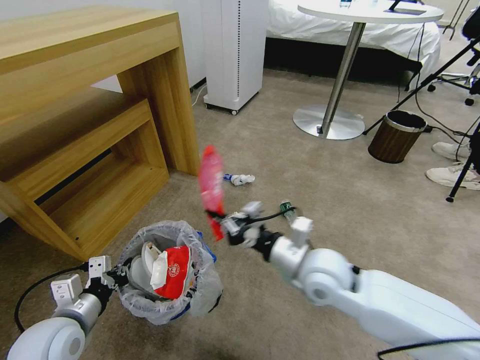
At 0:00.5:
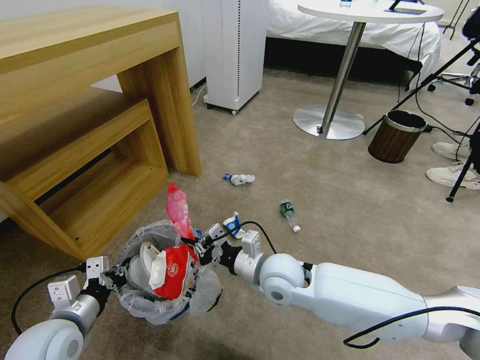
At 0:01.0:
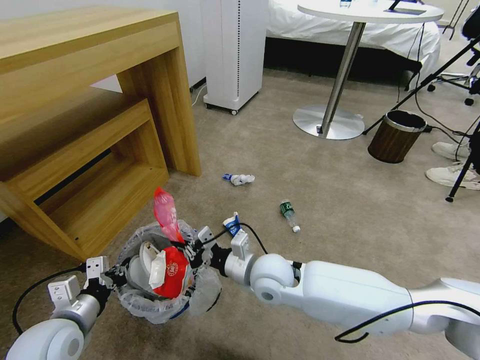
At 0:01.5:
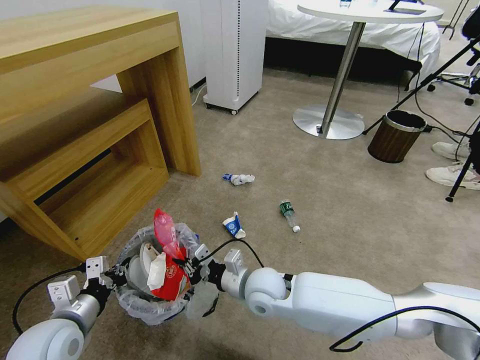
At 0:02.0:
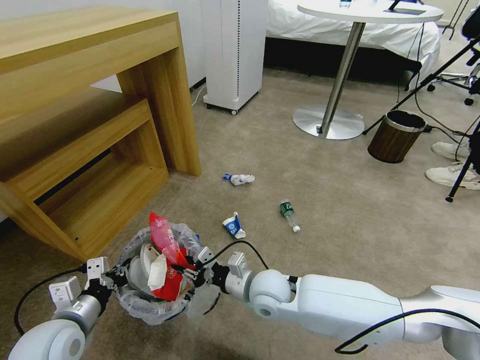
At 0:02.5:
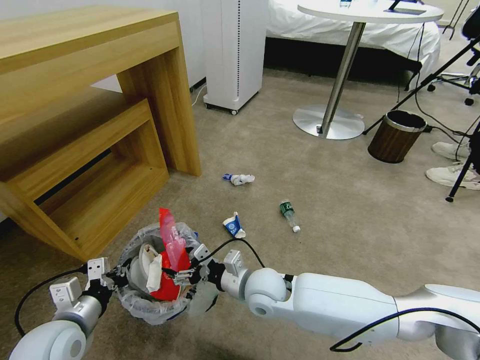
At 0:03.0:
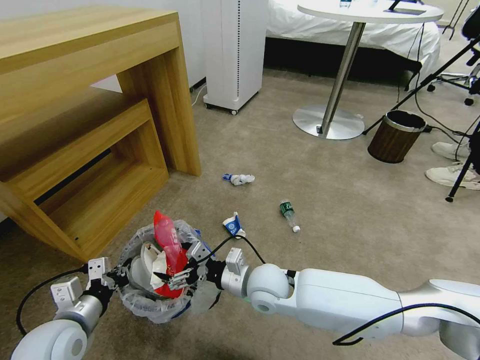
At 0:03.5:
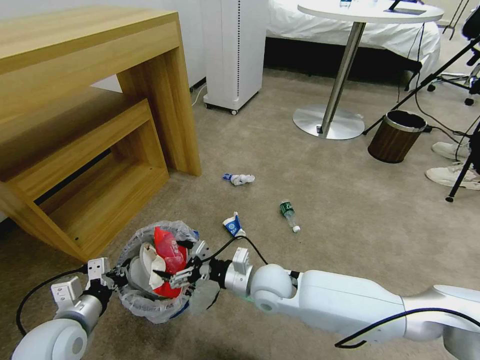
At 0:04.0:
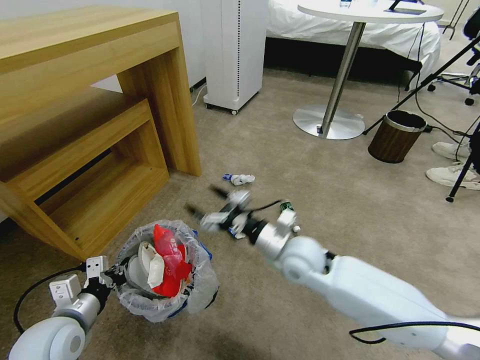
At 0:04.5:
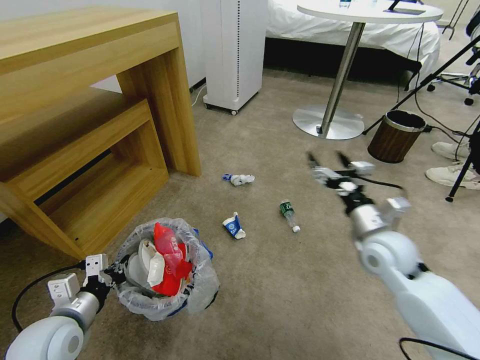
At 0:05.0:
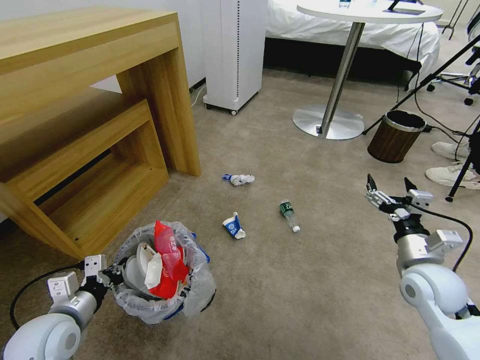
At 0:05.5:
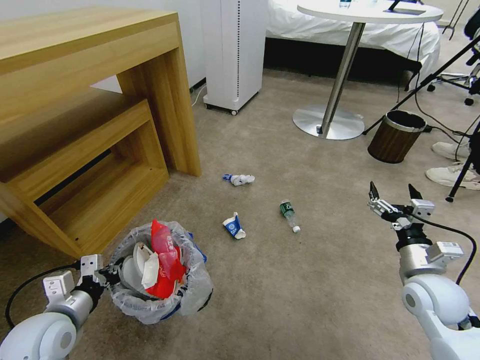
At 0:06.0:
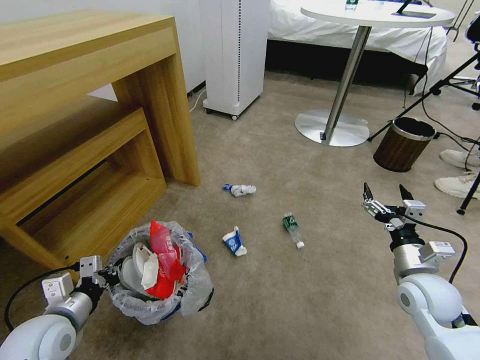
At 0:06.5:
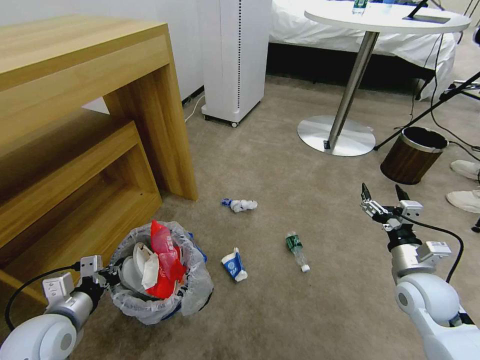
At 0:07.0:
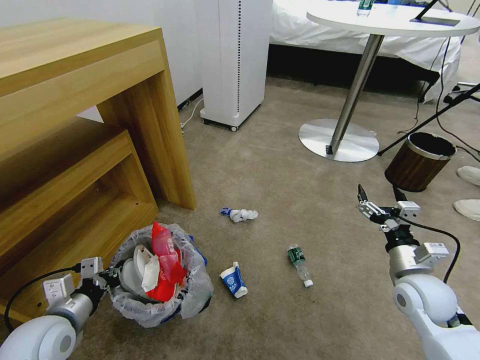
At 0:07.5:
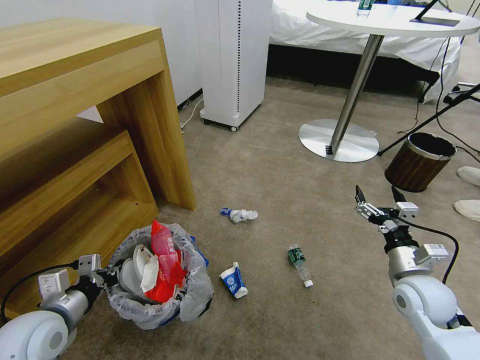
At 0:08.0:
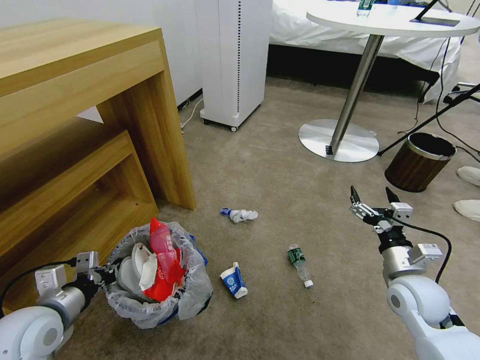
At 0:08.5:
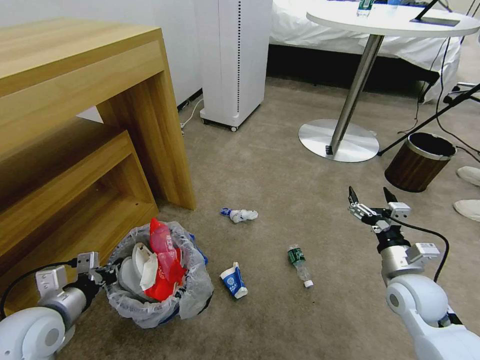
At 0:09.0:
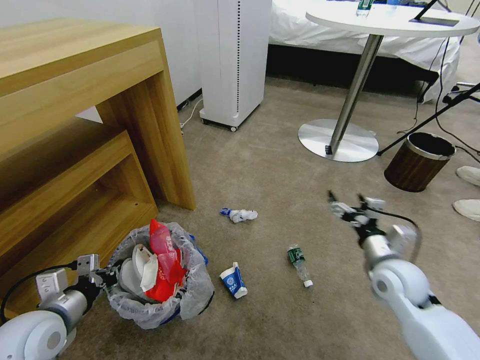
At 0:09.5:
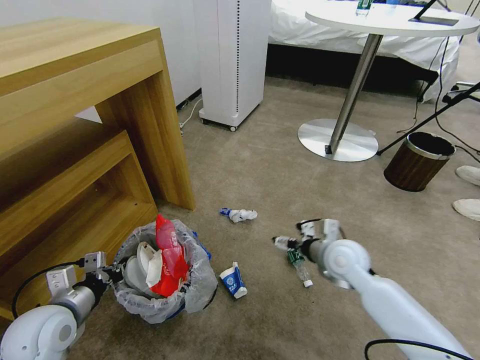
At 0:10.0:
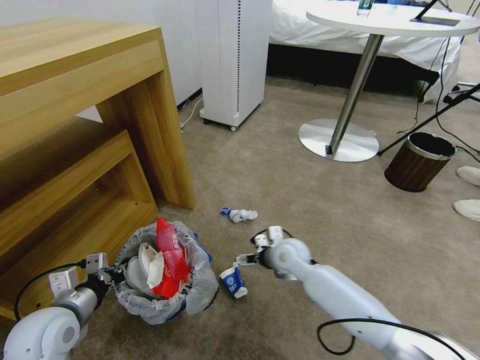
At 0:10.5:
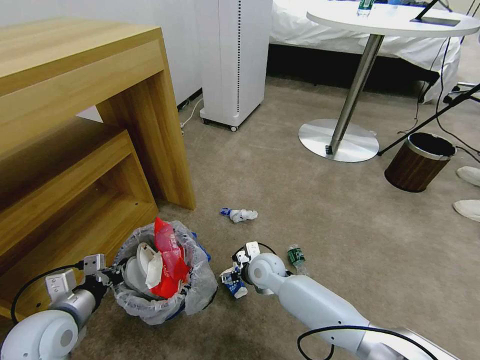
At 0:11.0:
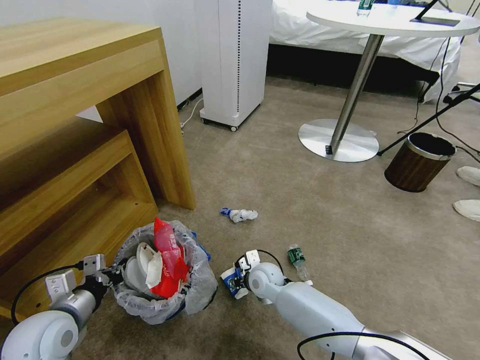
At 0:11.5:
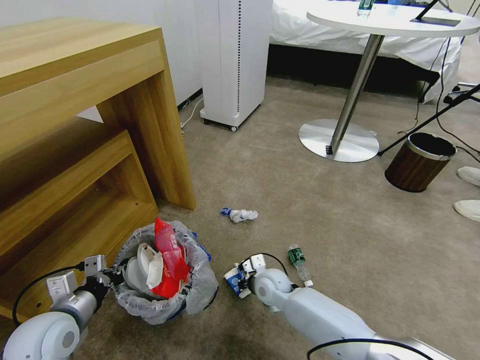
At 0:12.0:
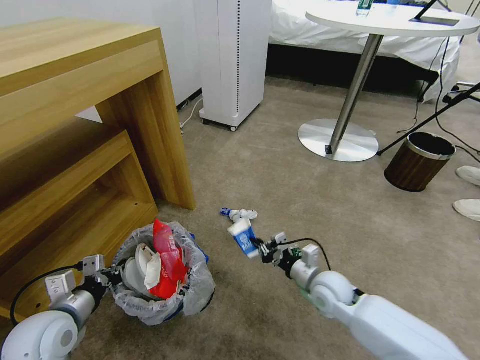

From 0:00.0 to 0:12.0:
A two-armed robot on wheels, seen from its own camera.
Task of the whole recording: Pick up the trash bin and place the garbage on the floor into it.
From 0:00.0 to 0:02.0: The right gripper heads downward and to the left, covering about 15 cm.
From 0:02.0 to 0:04.0: The right gripper goes approximately 10 cm upward and to the right, and opens its fingers.
From 0:04.0 to 0:06.0: The right gripper goes approximately 25 cm to the right.
From 0:08.0 to 0:10.0: The right gripper travels to the left and forward by roughly 25 cm.
From 0:10.0 to 0:12.0: The right gripper is displaced to the right and backward by about 10 cm, and closes up.

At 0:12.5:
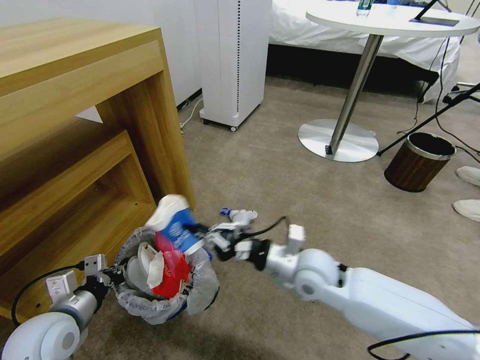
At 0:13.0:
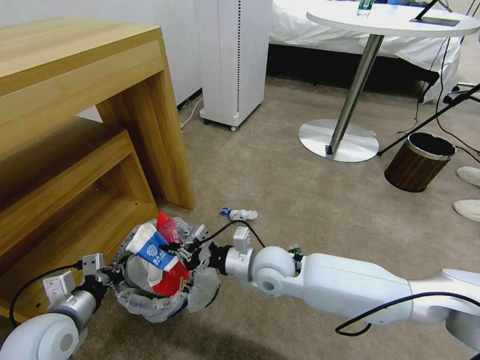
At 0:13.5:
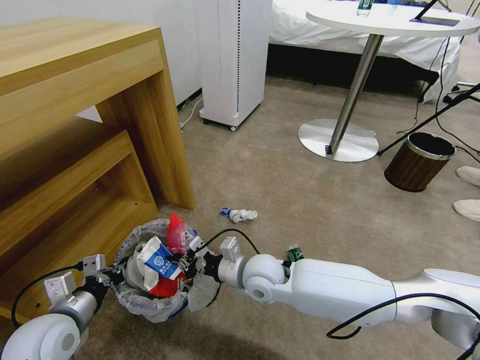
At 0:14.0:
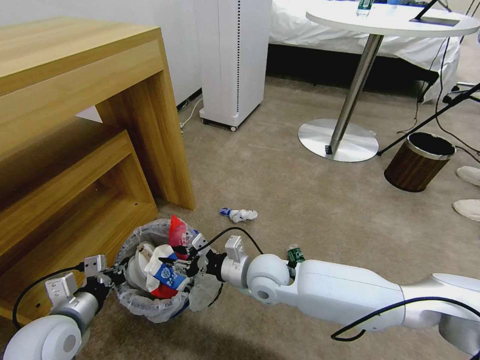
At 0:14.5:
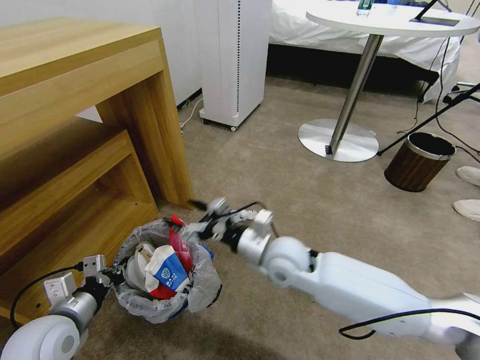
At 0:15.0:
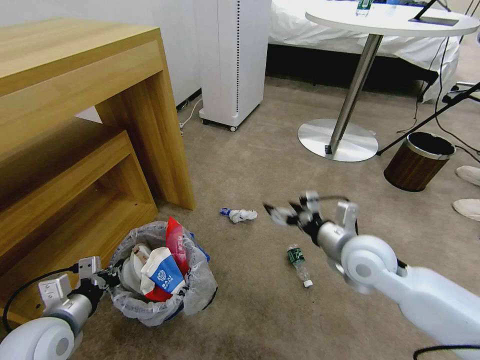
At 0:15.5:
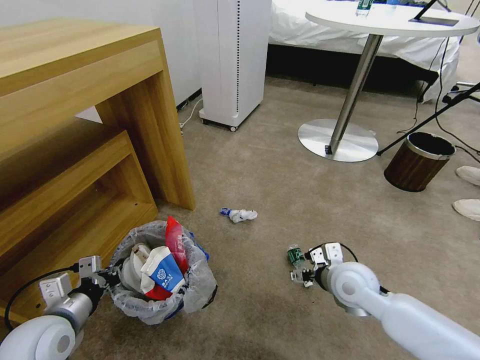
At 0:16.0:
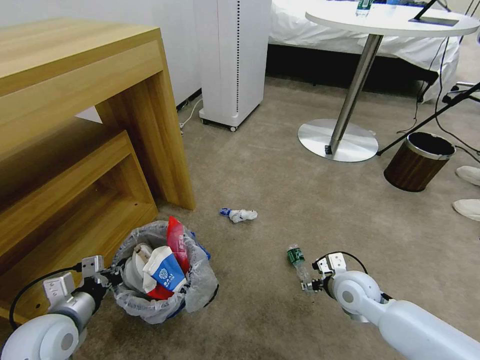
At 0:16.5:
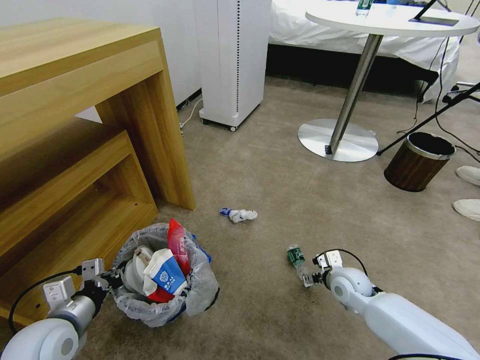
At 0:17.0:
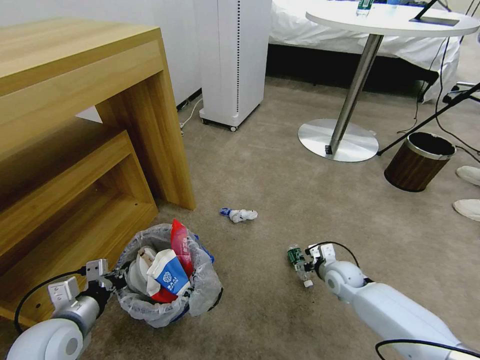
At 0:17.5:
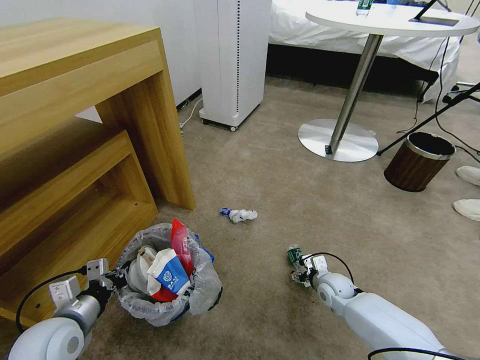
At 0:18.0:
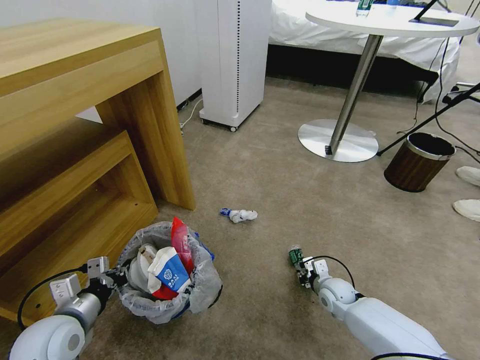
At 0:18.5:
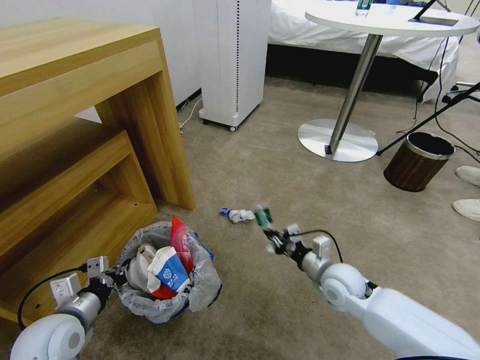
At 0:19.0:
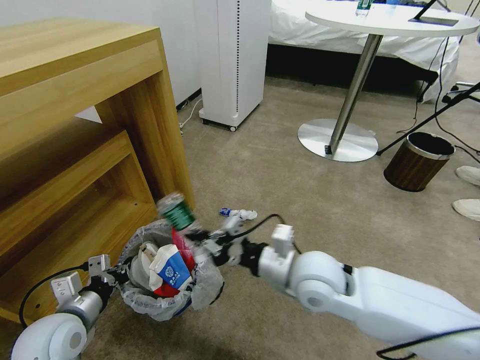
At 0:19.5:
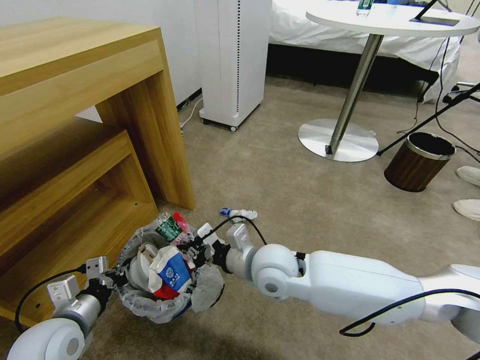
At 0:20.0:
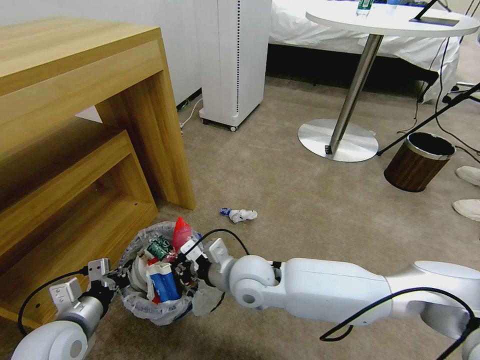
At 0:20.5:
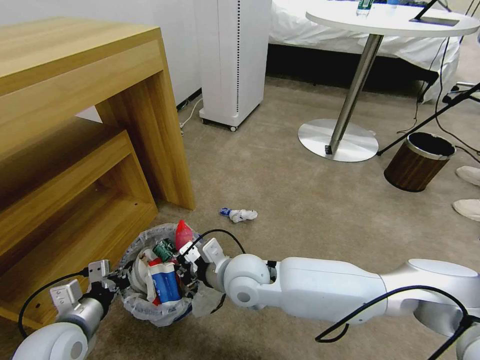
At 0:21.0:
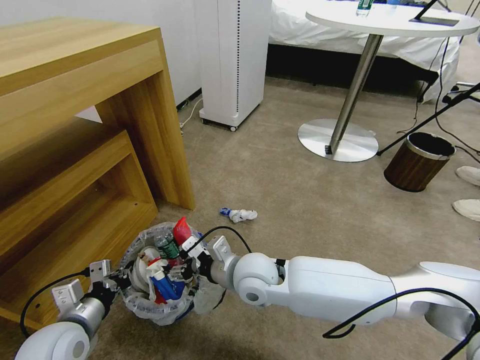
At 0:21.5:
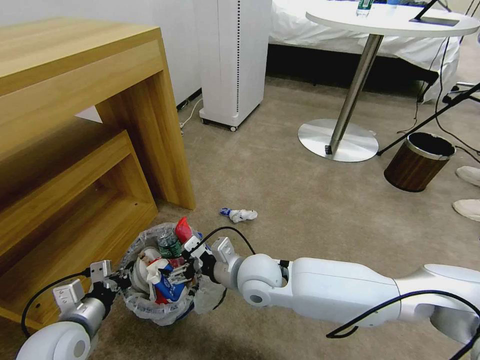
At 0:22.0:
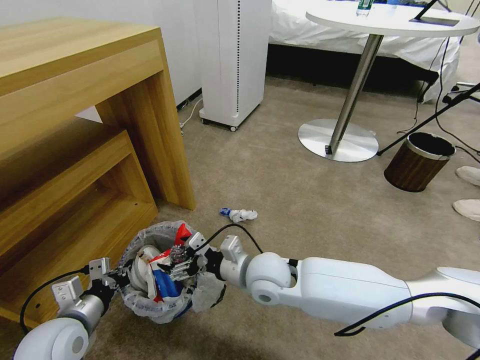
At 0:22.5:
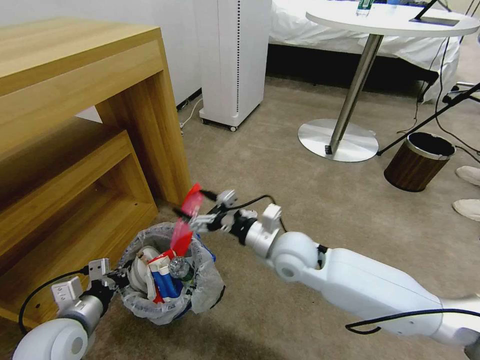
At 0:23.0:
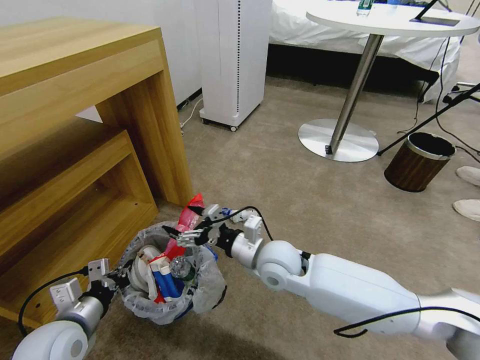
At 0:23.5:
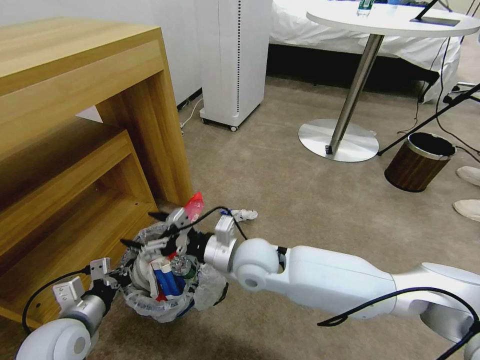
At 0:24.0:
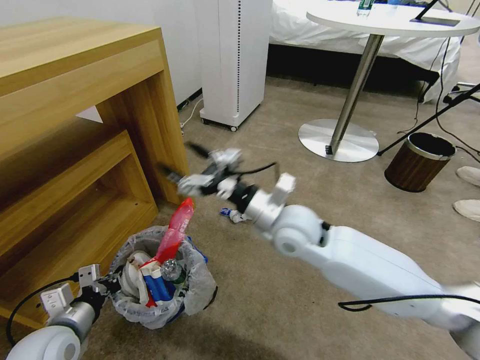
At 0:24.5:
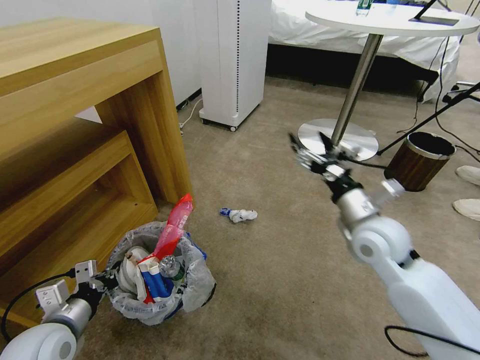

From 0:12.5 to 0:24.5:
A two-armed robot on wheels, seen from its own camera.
Task of the whole recording: Pick up the trash bin and place the garbage on the floor into it.
From 0:12.5 to 0:14.5: The right gripper opens up.
From 0:14.5 to 0:16.5: The right gripper shifts about 25 cm to the right and downward.
From 0:16.5 to 0:18.5: The right gripper reaches about 10 cm downward, then returns, and closes.
From 0:18.5 to 0:20.5: The right gripper travels to the left and upward by approximately 25 cm.
From 0:20.5 to 0:22.5: The right gripper travels to the right by some 10 cm, and opens its fingers.
From 0:22.5 to 0:24.5: The right gripper heads to the right, covering roughly 15 cm.

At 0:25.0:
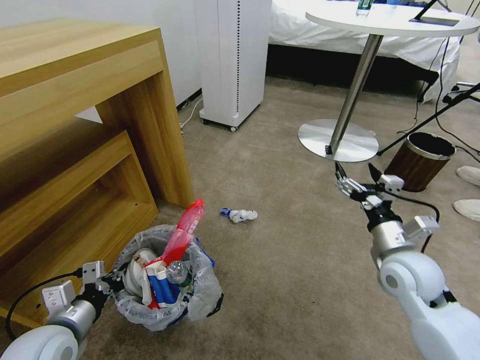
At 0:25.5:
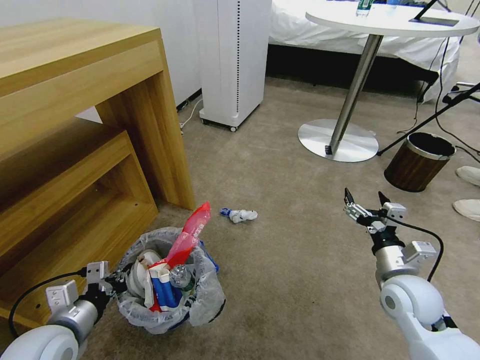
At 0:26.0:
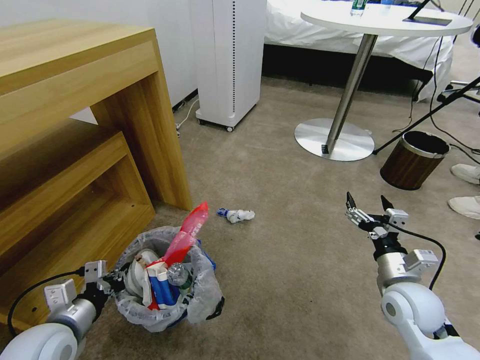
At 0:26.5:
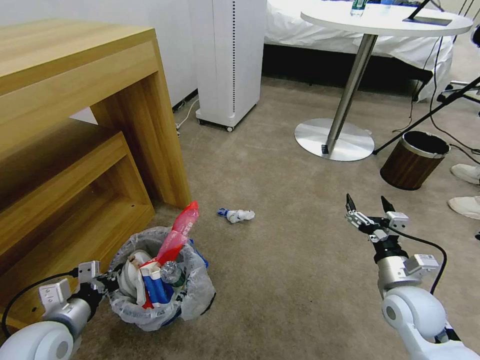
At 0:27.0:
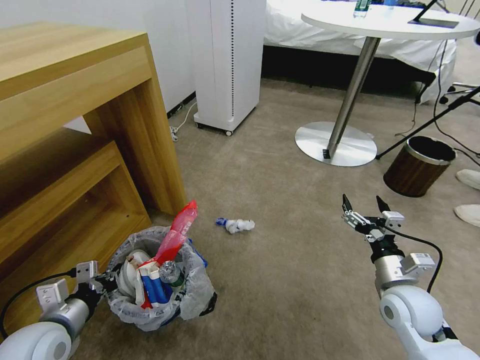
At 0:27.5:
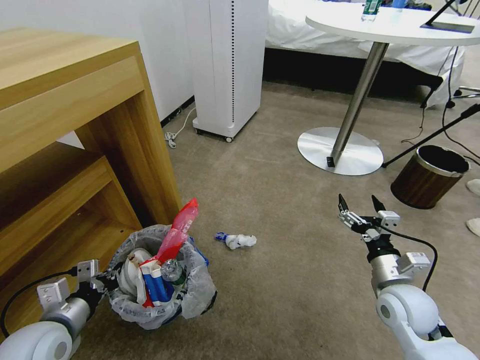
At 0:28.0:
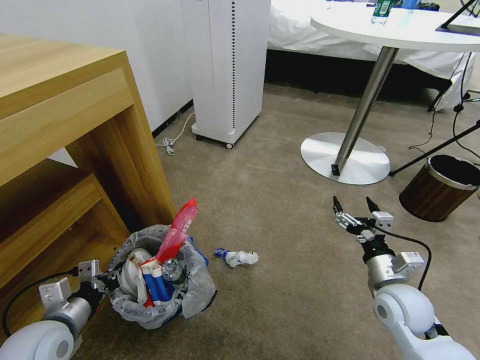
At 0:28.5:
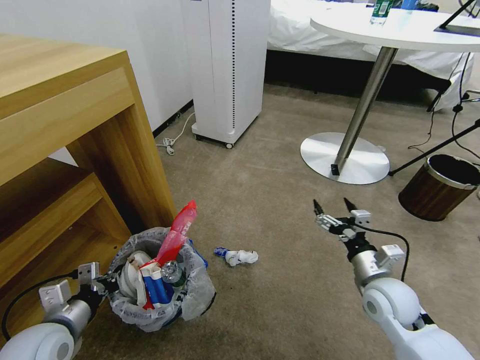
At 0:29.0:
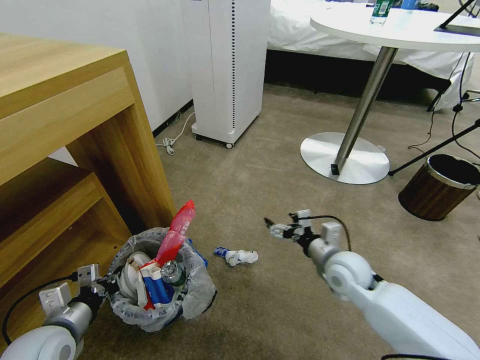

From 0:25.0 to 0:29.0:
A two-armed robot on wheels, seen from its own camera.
Task of the whole recording: Pick up the trash bin and place the garbage on the floor into it.
From 0:25.0 to 0:27.0: The right gripper goes roughly 5 cm downward.
From 0:27.0 to 0:29.0: The right gripper shifts approximately 10 cm to the left and forward.
